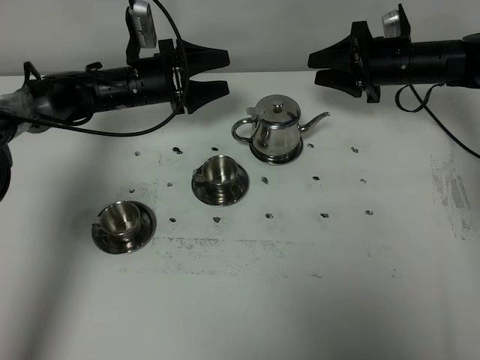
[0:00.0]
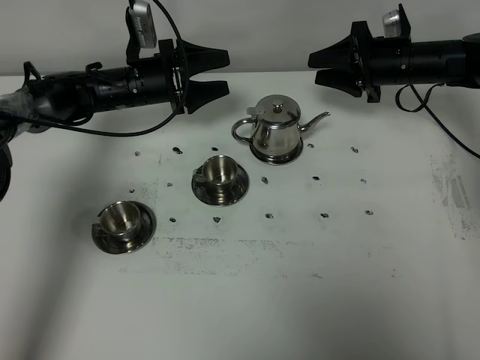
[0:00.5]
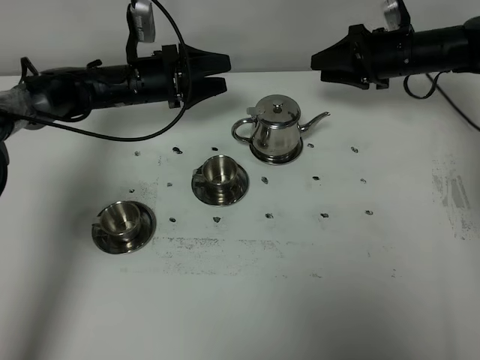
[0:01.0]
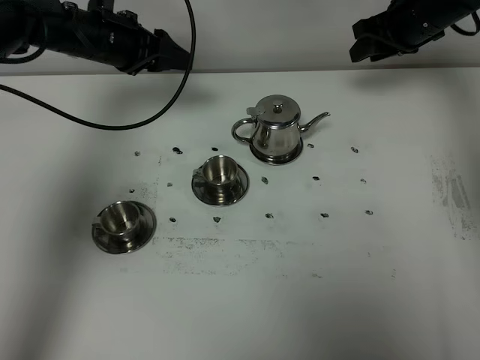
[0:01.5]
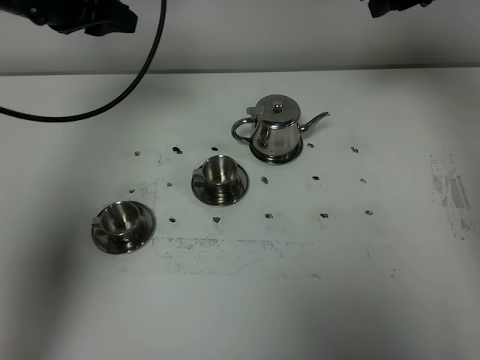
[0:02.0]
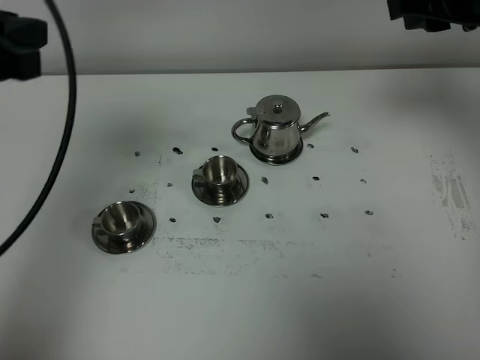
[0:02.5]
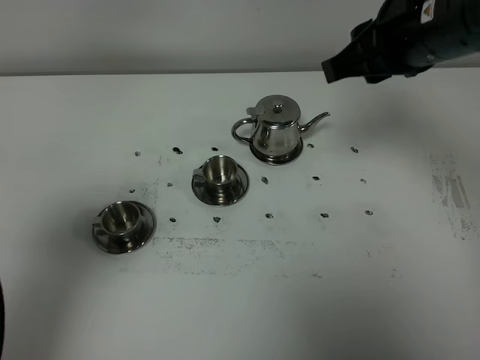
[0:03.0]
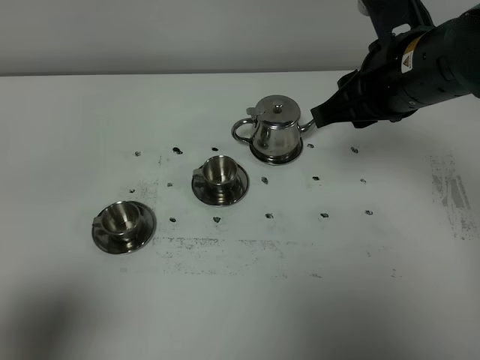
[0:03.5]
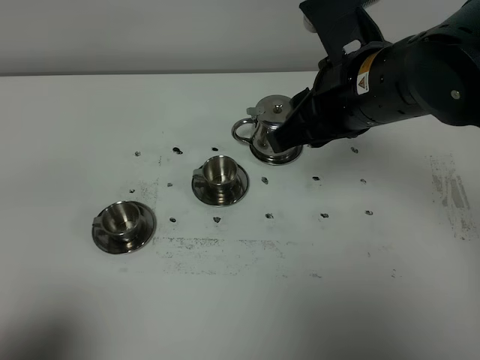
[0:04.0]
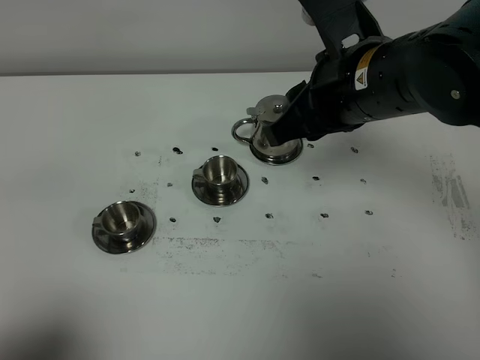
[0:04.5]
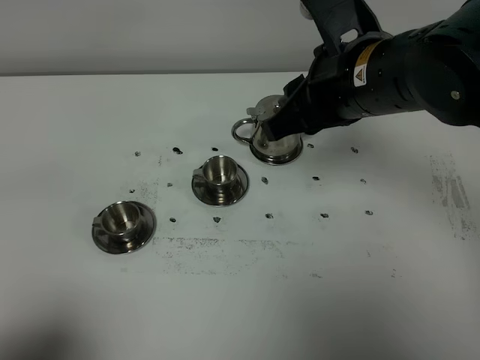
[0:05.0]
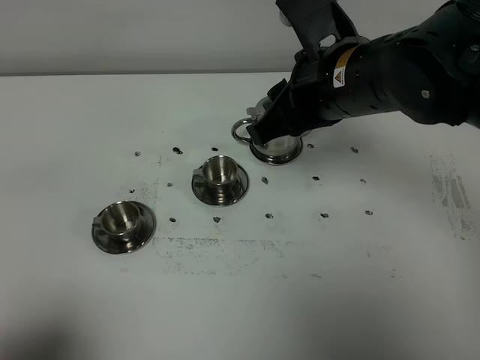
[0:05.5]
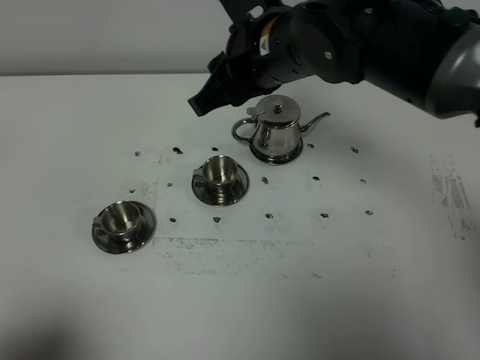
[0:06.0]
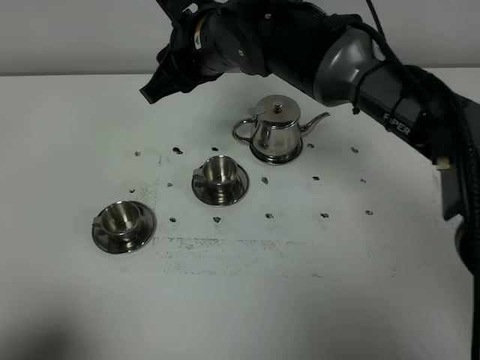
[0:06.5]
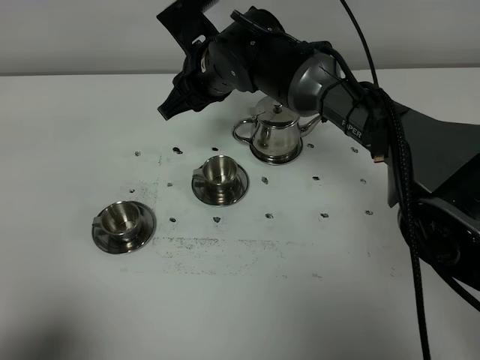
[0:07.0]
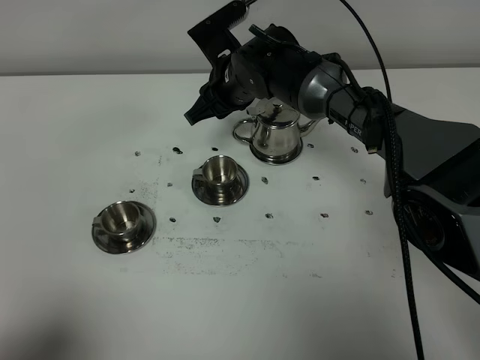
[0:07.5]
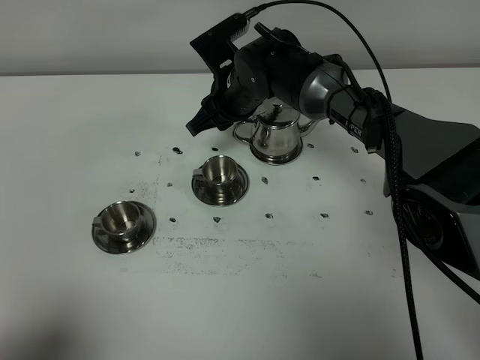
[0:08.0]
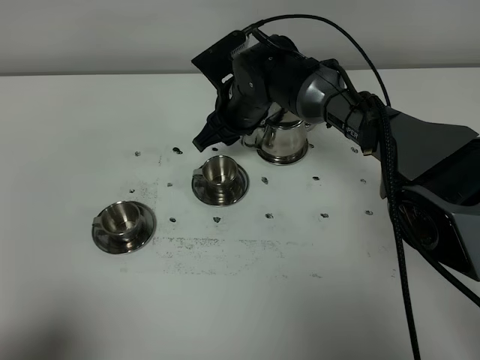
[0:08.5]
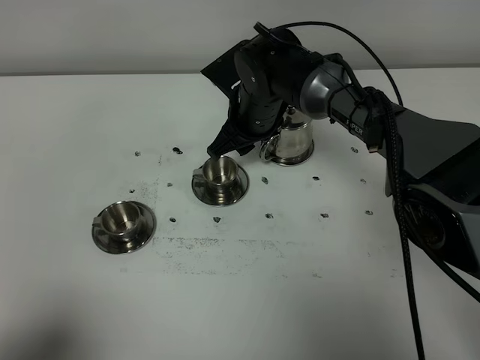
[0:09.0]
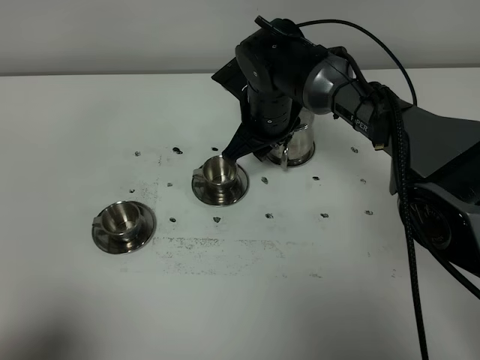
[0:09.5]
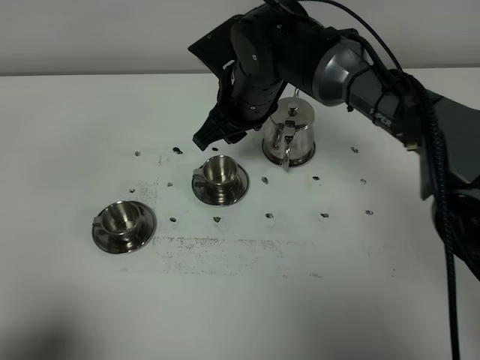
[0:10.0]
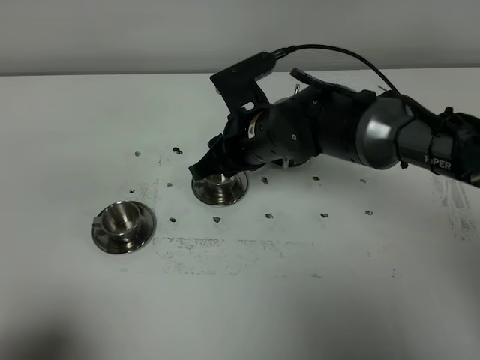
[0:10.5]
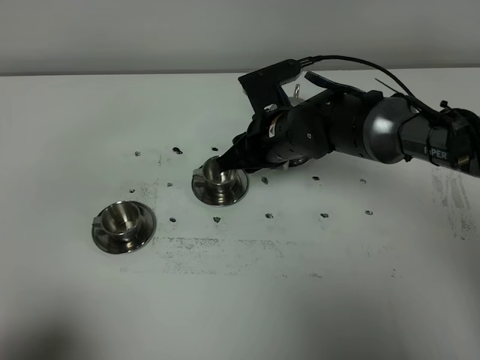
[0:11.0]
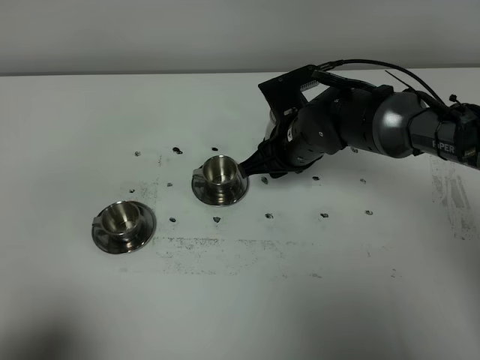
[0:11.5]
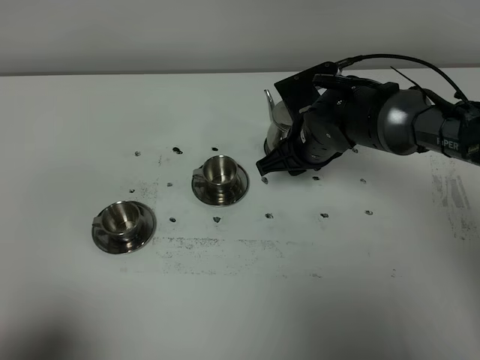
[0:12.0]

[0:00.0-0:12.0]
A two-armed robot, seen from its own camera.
Task of the whole recording: grasp the stainless steel teapot and pour the tea into the two stainless steel teacups one by one, put the stainless steel teapot back in its original place.
0:00.0 to 0:02.0: The two grippers go roughly 20 cm upward. The left gripper closes.
0:02.0 to 0:04.0: The right gripper is displaced backward and to the left by some 20 cm. Meanwhile the left gripper heads backward, covering approximately 40 cm.
0:04.0 to 0:06.0: The right gripper heads to the left and forward, covering roughly 10 cm.
0:06.0 to 0:08.0: The right gripper shifts approximately 20 cm downward and forward.
0:08.0 to 0:10.0: The right gripper shifts about 10 cm upward and backward.
0:10.0 to 0:12.0: The right gripper moves to the right and downward, approximately 10 cm.

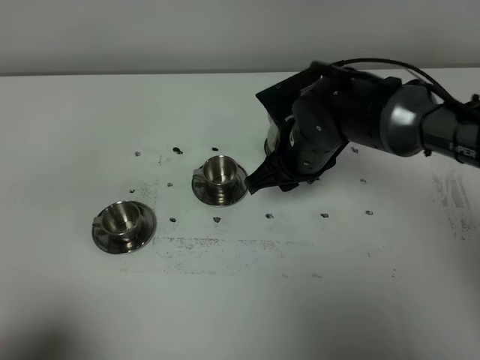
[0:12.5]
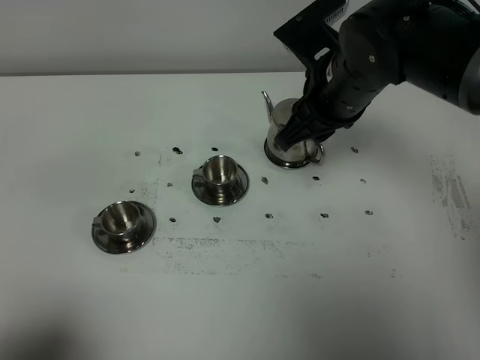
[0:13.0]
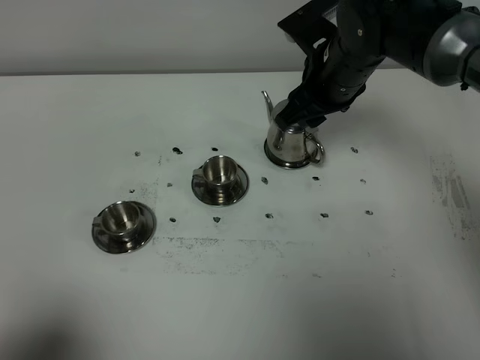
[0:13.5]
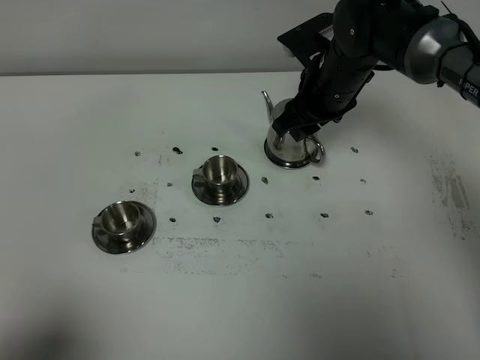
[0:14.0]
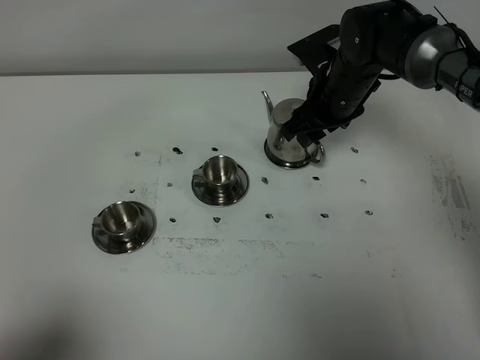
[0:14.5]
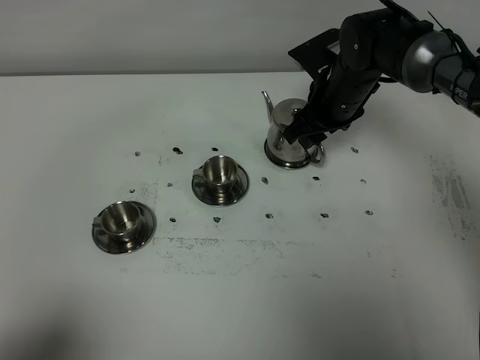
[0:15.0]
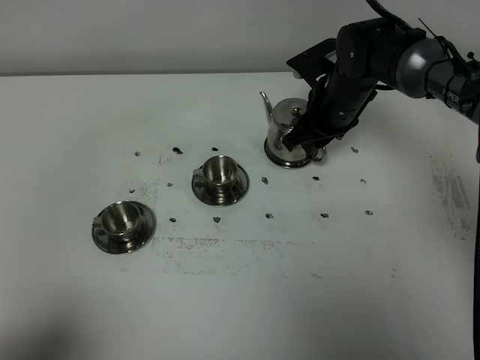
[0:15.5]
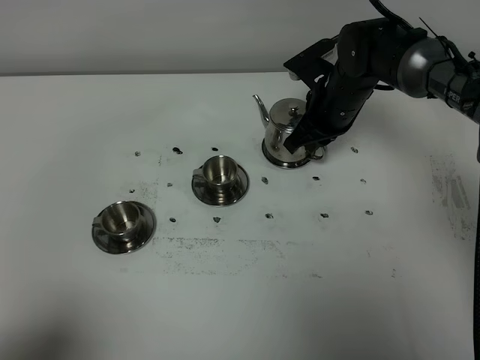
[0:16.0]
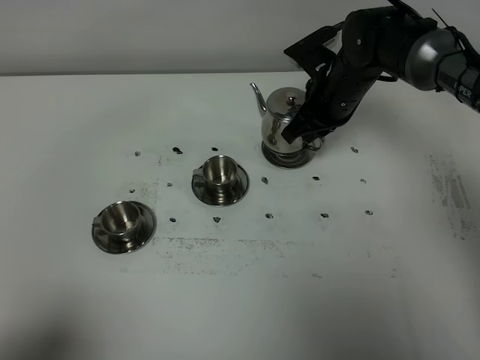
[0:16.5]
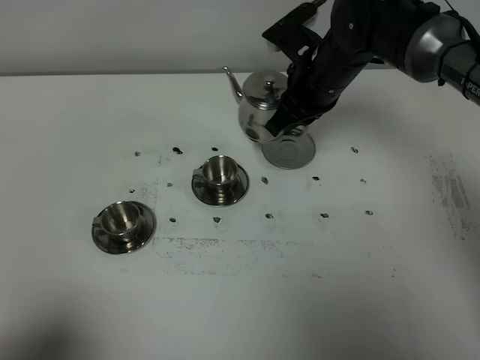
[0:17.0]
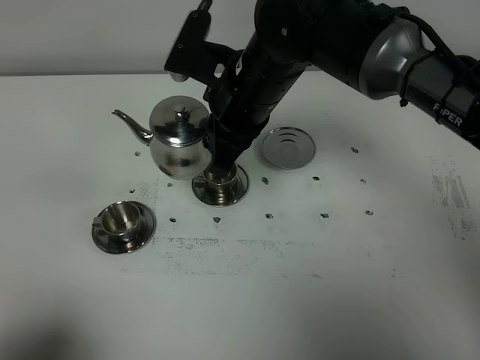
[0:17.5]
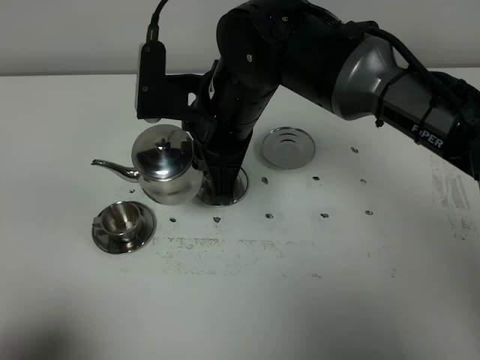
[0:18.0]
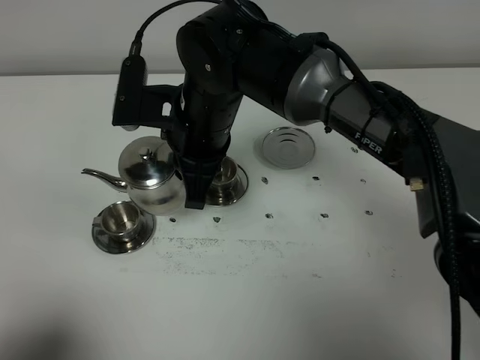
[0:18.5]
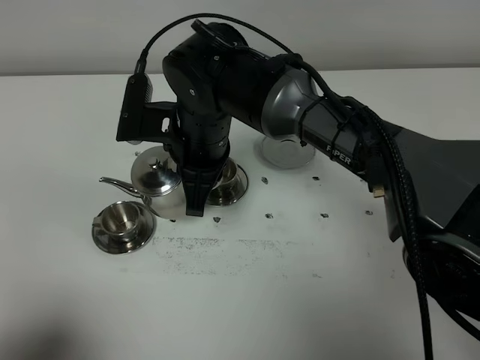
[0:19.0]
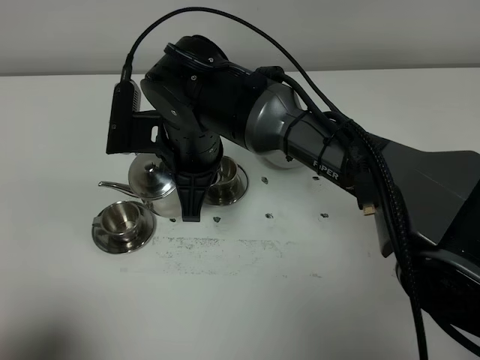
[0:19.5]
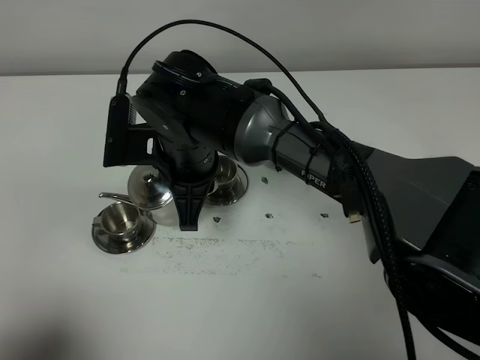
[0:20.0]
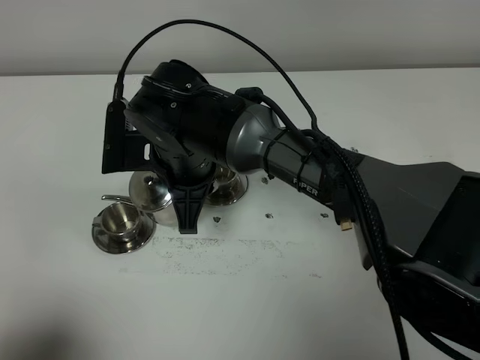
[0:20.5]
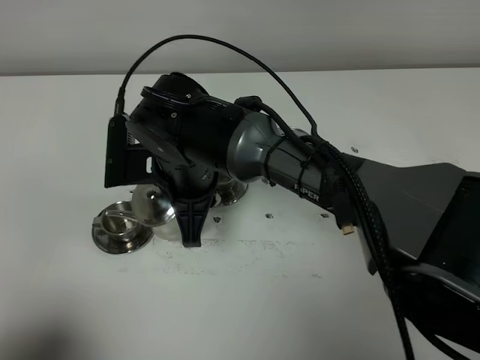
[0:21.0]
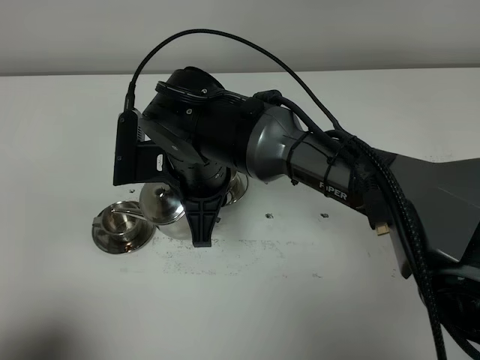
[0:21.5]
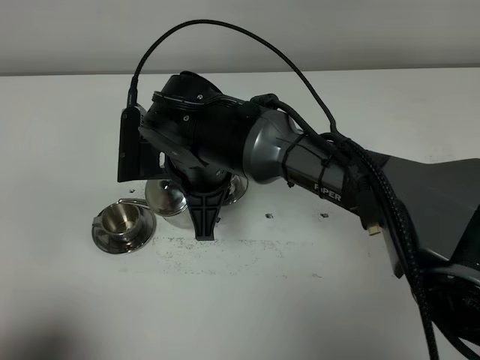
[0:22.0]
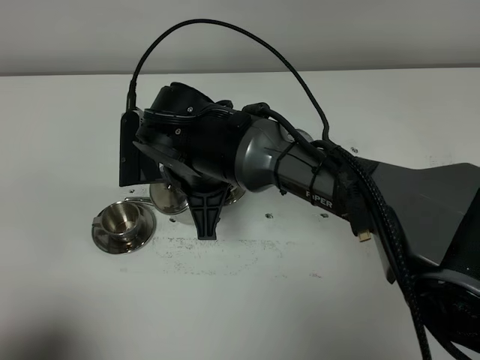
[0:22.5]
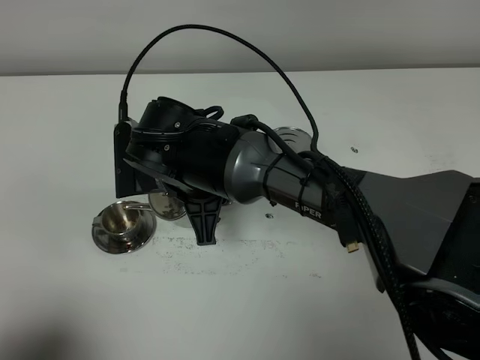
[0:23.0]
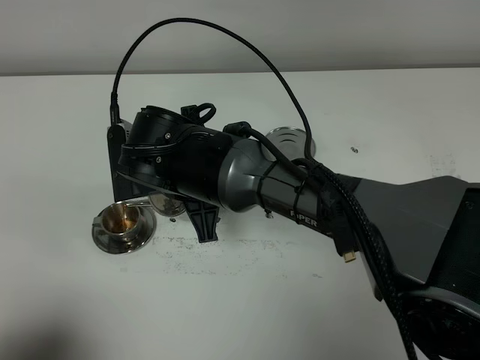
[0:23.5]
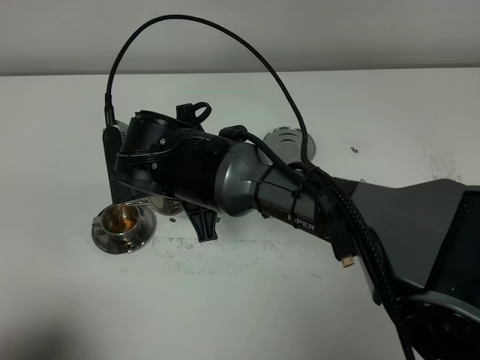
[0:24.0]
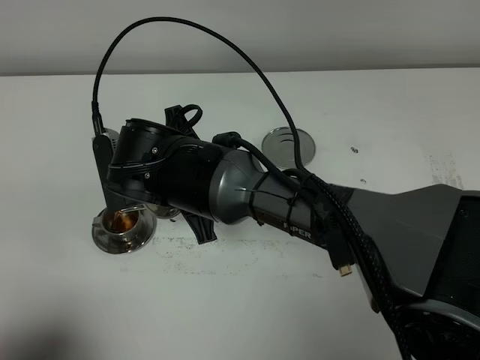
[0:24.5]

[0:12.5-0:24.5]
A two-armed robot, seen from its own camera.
Task of the whole recording: grasp the stainless steel teapot and pour the tea into the two stainless steel teacups one by one, put the stainless steel teapot back in its original place.
Step, 0:12.5 to 0:16.0: Pick up the teapot with the right gripper.
0:12.5 to 0:14.5: The right gripper is displaced forward by roughly 10 cm, and opens its fingers.
0:14.5 to 0:16.5: The right gripper closes its fingers.
0:16.5 to 0:18.5: The right gripper shifts some 20 cm to the left, backward and upward.
0:18.5 to 0:20.5: The right gripper shifts by about 5 cm.
0:20.5 to 0:22.5: The grippers make only small movements.

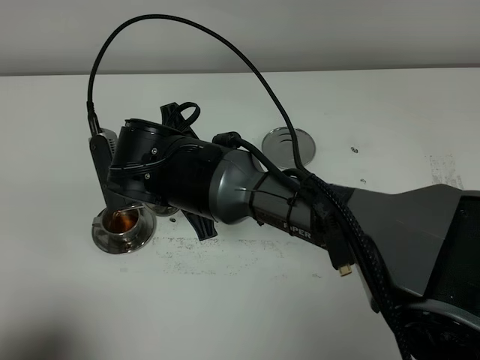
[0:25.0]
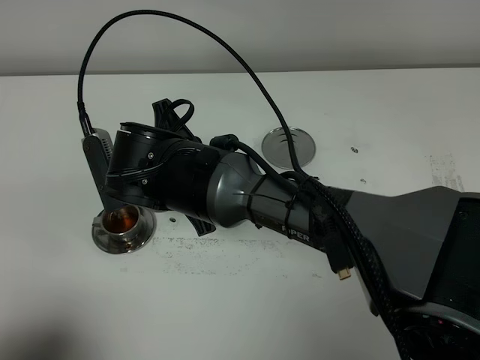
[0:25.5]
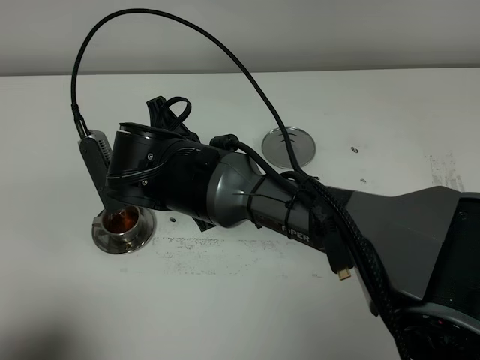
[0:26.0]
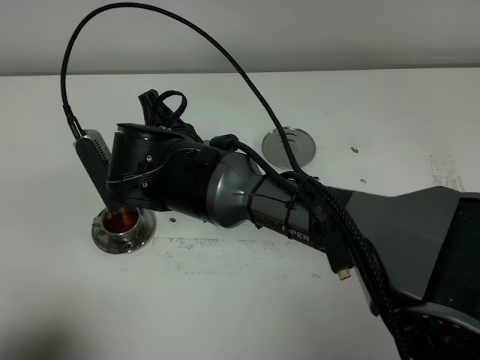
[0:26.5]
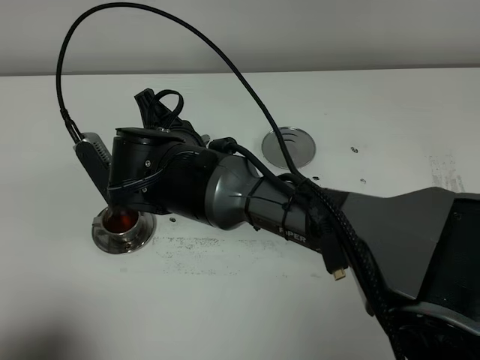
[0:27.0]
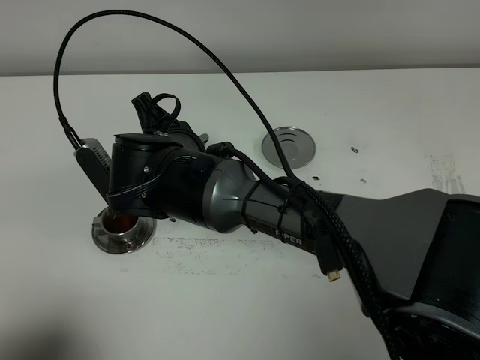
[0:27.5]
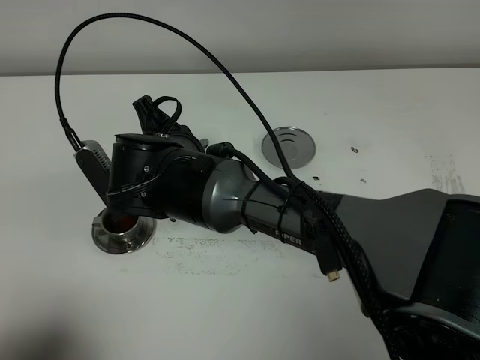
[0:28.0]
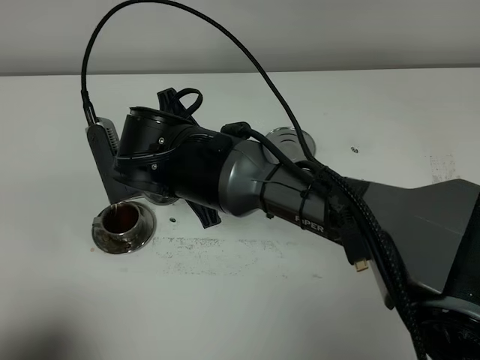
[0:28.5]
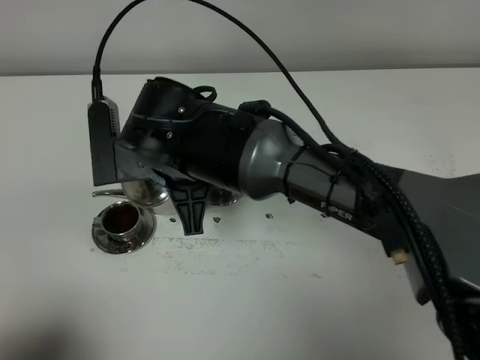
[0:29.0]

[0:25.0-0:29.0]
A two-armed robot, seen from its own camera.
Task of the whole recording: grasp the stainless steel teapot and pour the tea into the two stainless steel teacups one by one, put the stainless steel teapot back in its original place.
0:25.0 to 0:27.0: There are only small adjustments of the grippers.
0:27.0 to 0:29.0: The right gripper ends up some 5 cm from where it was.
